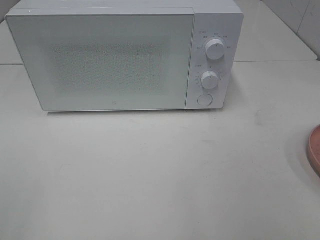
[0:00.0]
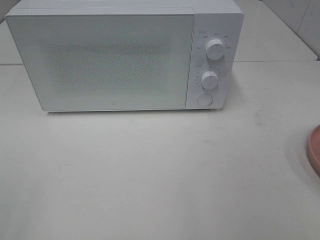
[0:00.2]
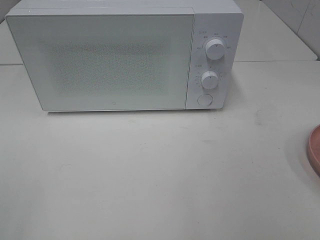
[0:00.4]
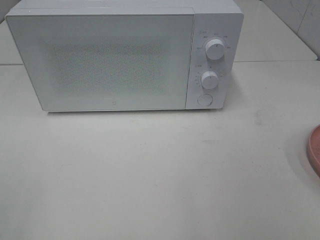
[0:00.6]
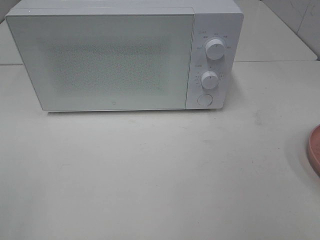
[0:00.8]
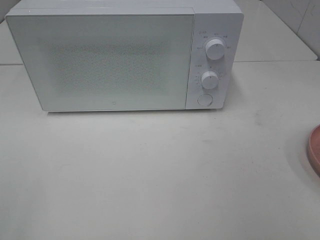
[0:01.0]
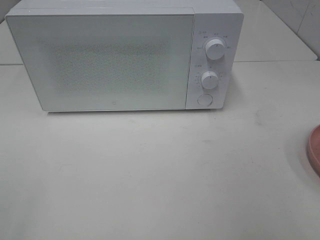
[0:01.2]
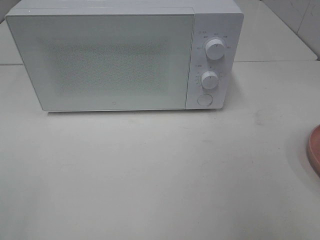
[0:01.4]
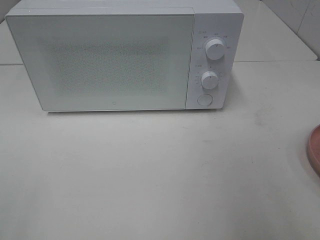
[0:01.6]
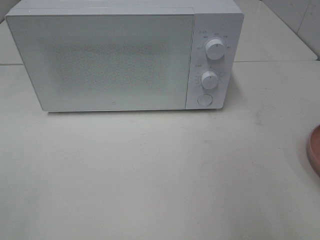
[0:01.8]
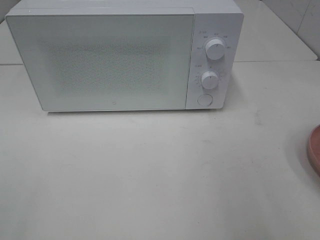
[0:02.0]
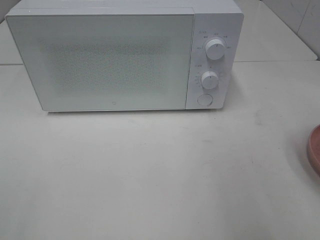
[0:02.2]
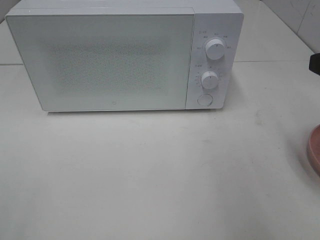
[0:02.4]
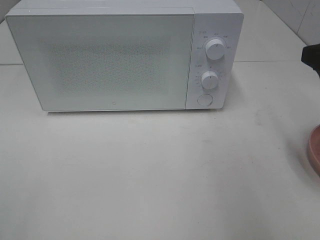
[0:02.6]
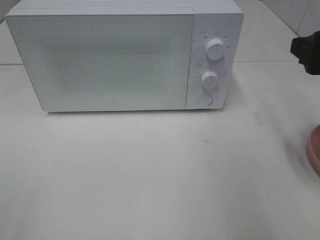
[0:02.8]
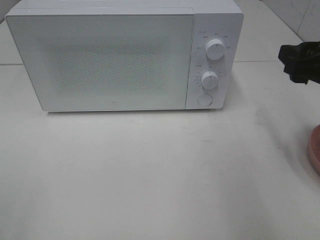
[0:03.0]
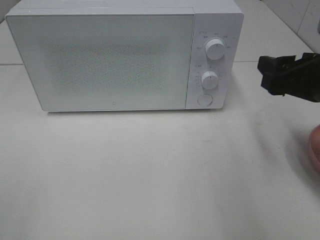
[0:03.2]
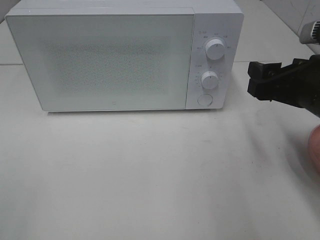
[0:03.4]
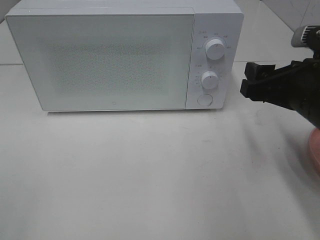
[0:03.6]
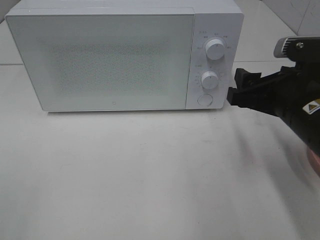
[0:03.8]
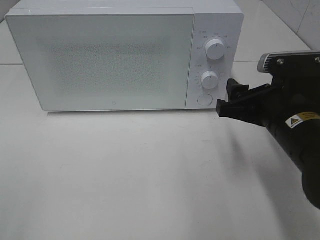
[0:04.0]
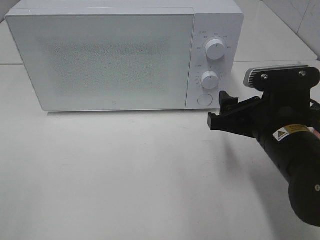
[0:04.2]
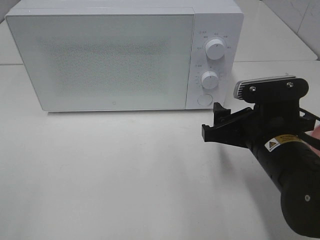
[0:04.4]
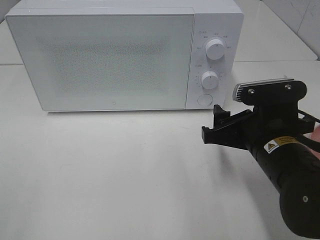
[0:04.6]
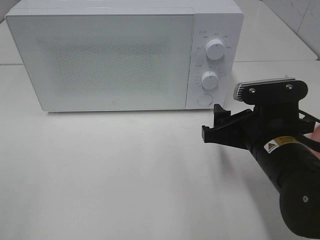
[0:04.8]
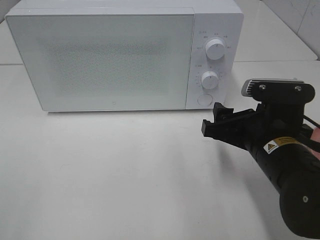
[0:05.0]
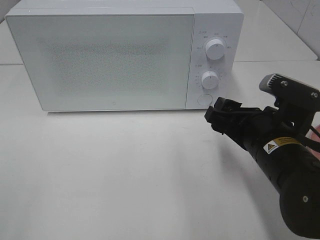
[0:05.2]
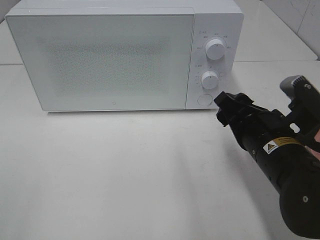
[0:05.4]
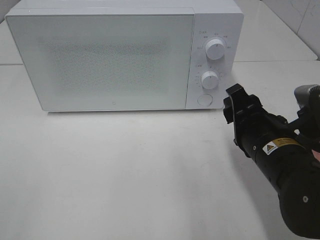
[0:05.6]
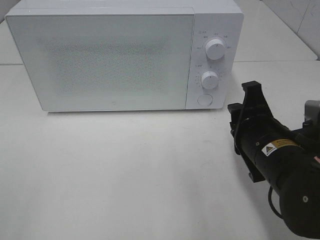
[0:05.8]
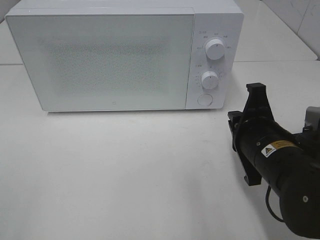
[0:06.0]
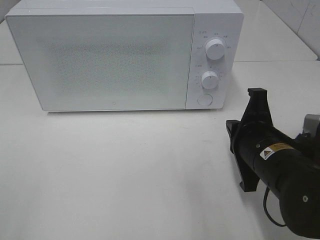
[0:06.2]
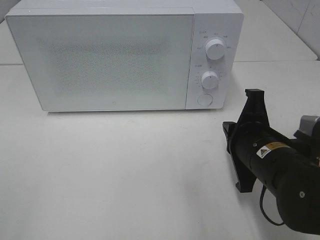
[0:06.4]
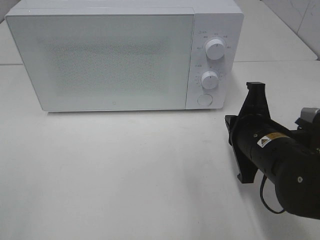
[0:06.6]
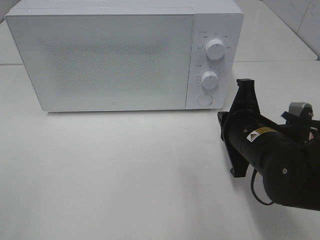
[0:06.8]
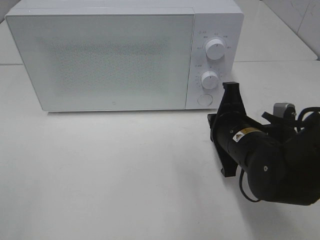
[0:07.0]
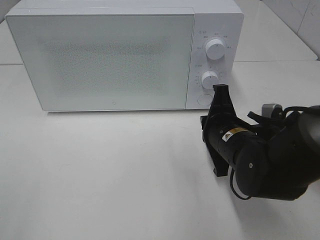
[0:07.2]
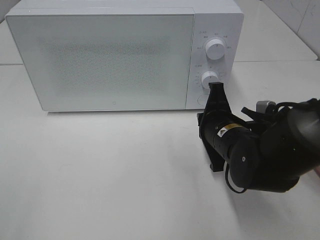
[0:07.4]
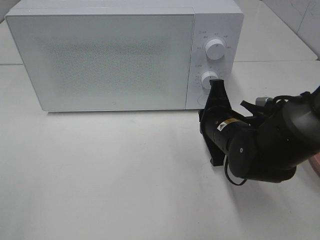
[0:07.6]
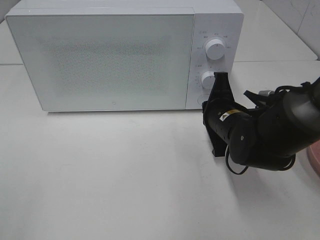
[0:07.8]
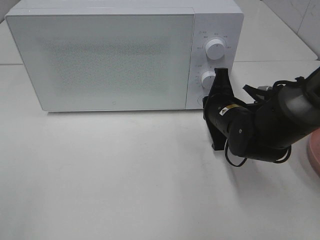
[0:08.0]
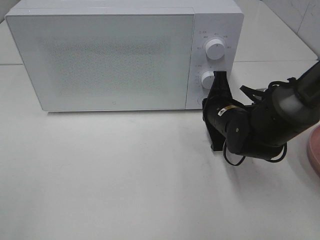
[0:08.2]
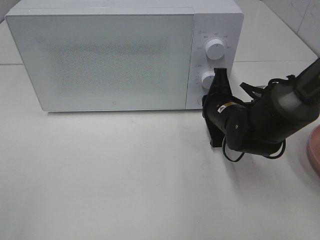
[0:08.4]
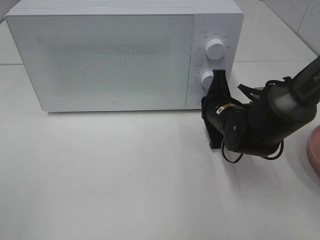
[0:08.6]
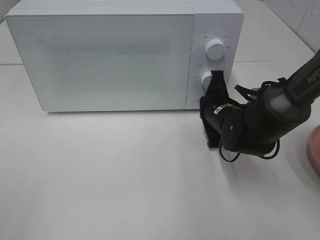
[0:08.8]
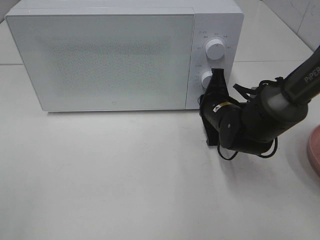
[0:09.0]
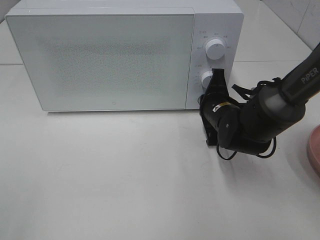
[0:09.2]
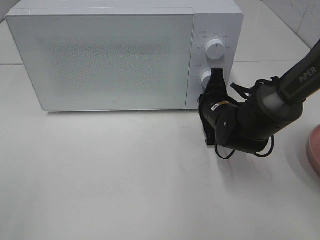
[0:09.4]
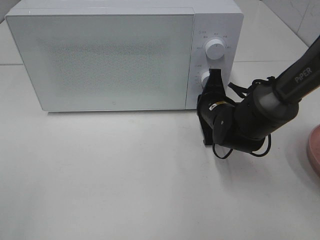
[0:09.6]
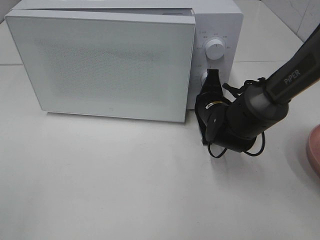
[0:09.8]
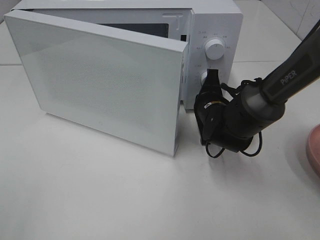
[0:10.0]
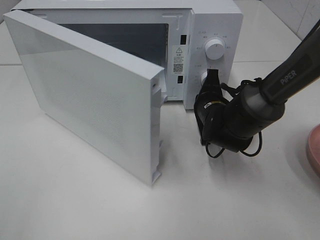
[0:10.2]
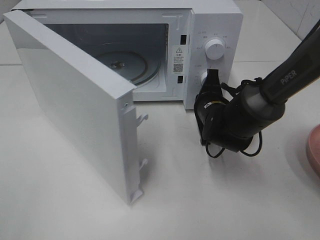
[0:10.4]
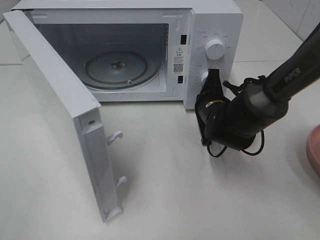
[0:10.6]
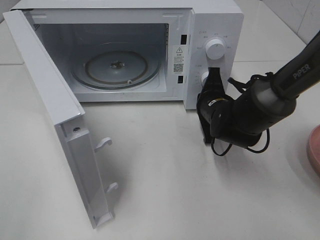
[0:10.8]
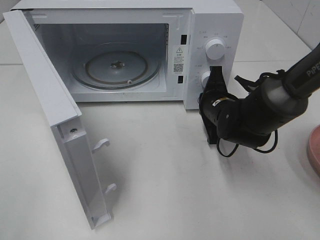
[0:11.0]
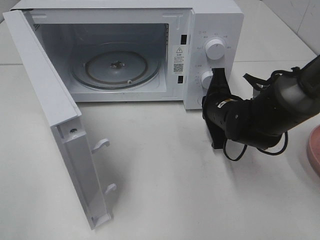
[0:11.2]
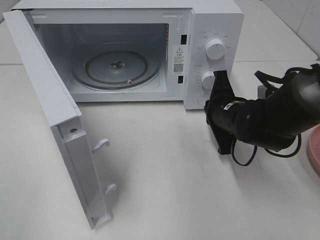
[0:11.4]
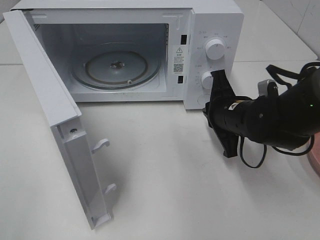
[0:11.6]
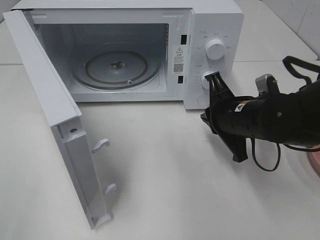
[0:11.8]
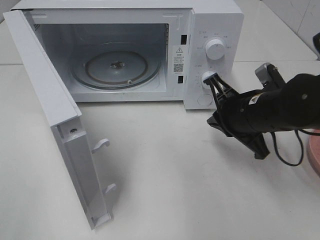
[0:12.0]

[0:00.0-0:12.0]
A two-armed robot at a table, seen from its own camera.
Task of the whole recording: Heat the burger.
Step, 0:00.0 to 0:11.4: Right hand: press the switch.
0:01.6 to 0:03.0: The right gripper is displaced forward by some 15 cm.
0:03.0 to 0:04.4: The right gripper travels to the left and downward by roughly 15 cm.
0:04.4 to 0:06.0: The right gripper closes up.
0:06.0 to 0:07.6: The right gripper shifts roughly 10 cm forward.
0:07.6 to 0:09.0: The right gripper heads forward, covering some 5 cm.
0:10.4 to 0:12.0: The right gripper moves backward and upward, approximately 10 cm.

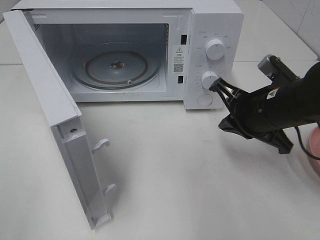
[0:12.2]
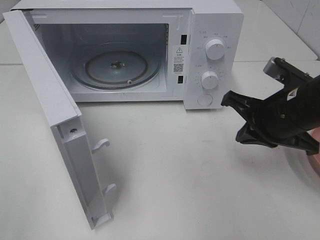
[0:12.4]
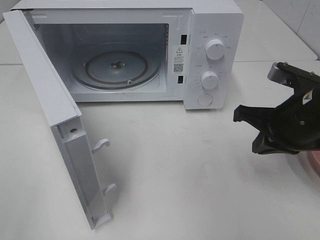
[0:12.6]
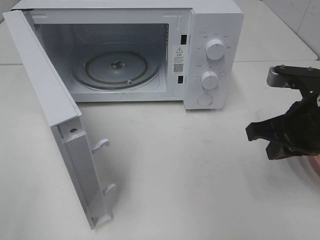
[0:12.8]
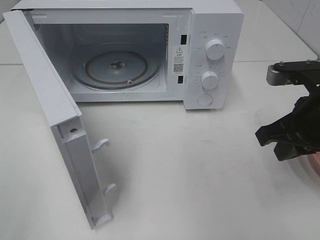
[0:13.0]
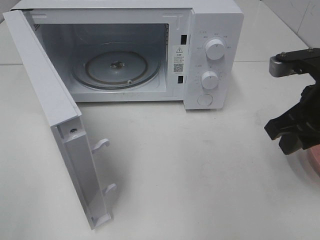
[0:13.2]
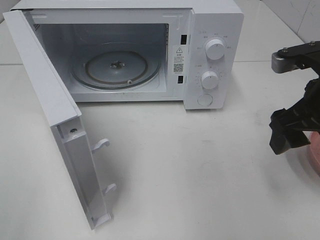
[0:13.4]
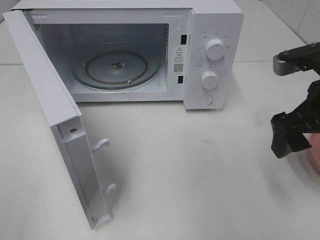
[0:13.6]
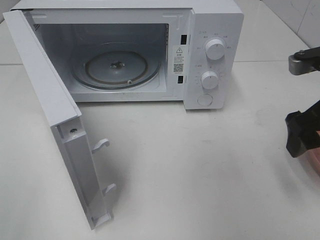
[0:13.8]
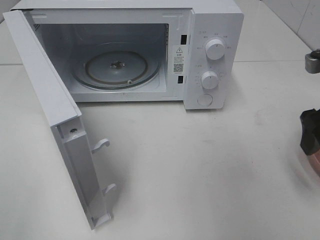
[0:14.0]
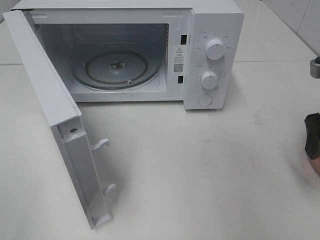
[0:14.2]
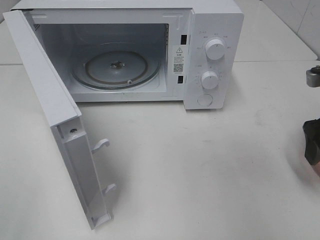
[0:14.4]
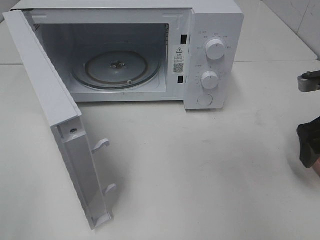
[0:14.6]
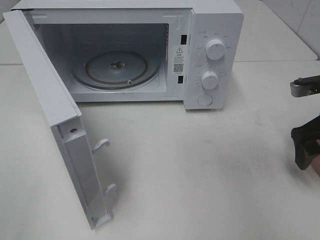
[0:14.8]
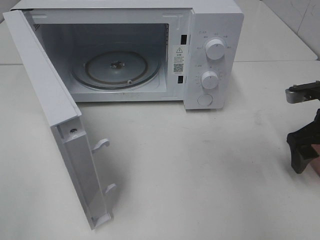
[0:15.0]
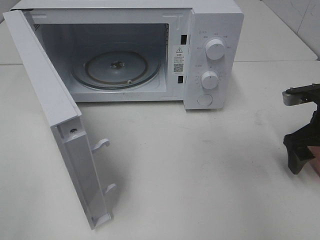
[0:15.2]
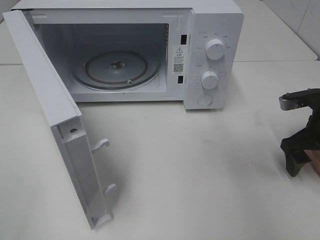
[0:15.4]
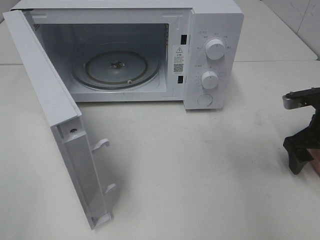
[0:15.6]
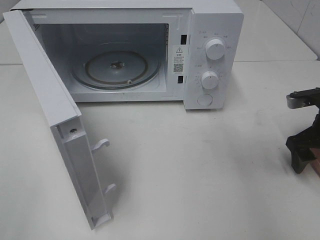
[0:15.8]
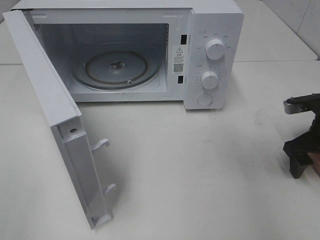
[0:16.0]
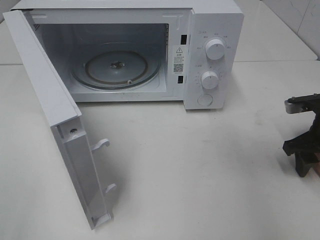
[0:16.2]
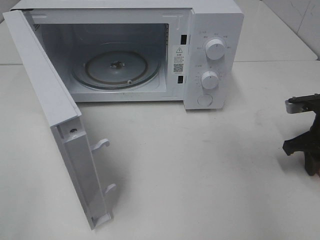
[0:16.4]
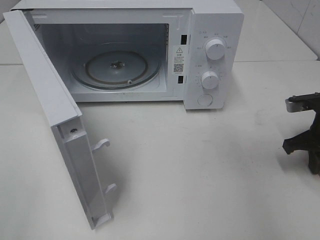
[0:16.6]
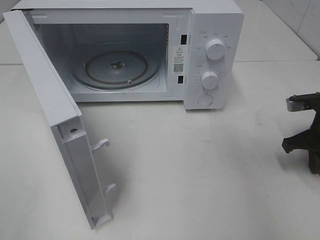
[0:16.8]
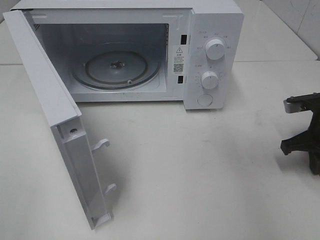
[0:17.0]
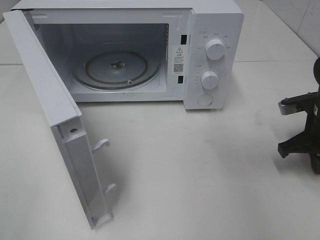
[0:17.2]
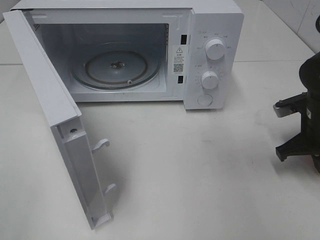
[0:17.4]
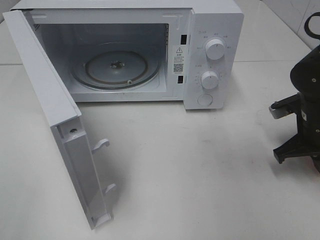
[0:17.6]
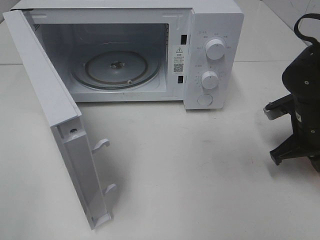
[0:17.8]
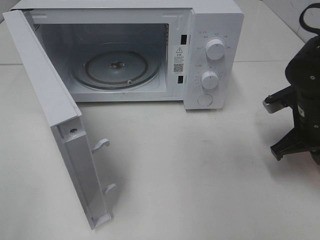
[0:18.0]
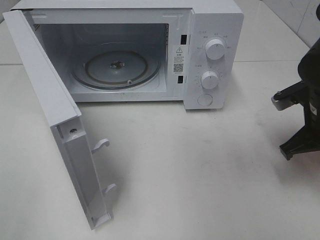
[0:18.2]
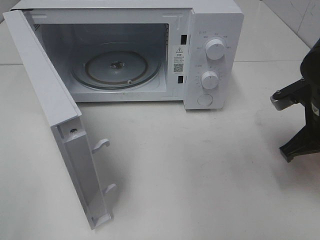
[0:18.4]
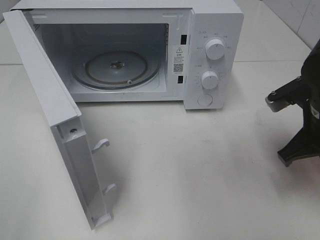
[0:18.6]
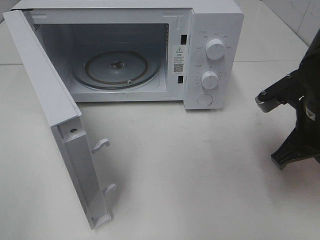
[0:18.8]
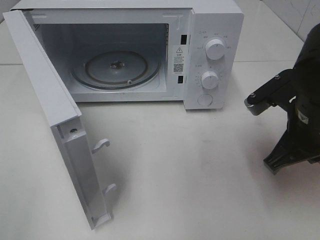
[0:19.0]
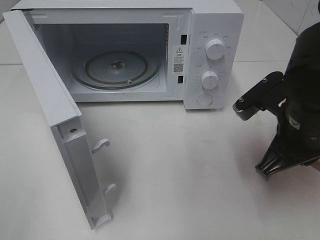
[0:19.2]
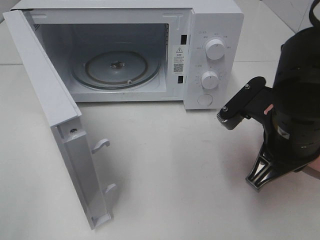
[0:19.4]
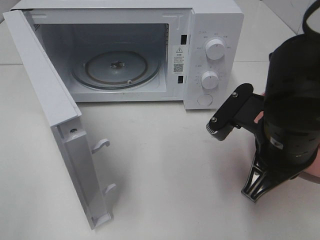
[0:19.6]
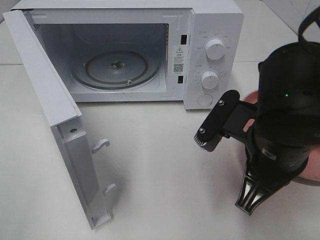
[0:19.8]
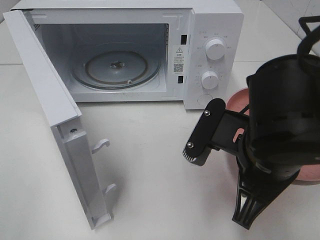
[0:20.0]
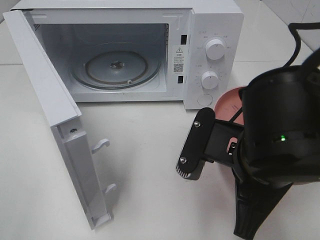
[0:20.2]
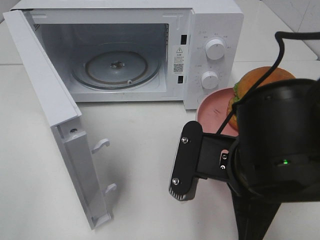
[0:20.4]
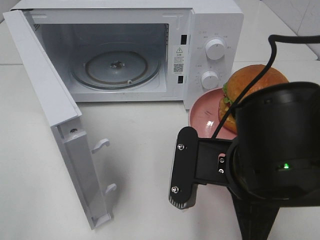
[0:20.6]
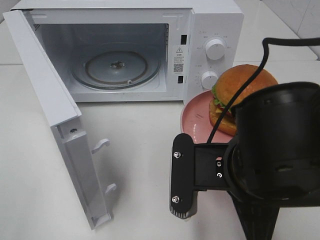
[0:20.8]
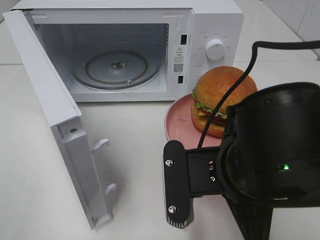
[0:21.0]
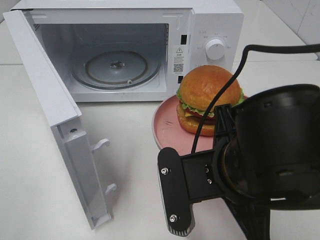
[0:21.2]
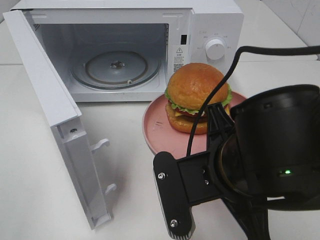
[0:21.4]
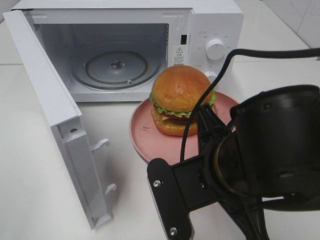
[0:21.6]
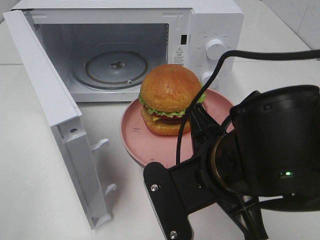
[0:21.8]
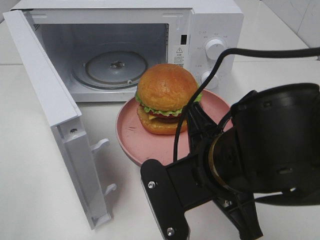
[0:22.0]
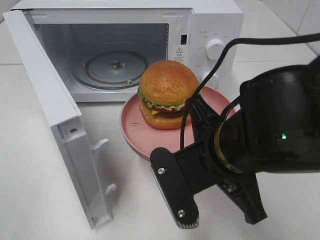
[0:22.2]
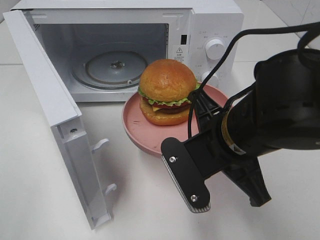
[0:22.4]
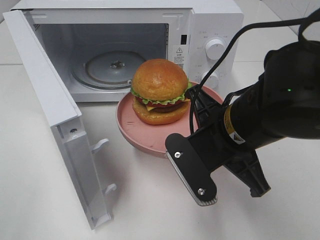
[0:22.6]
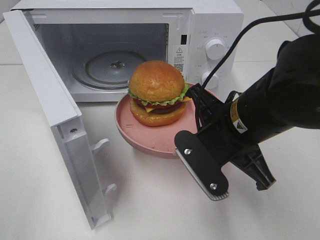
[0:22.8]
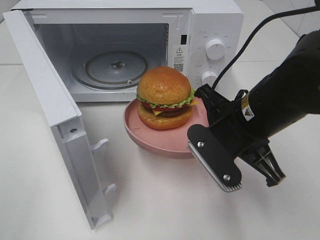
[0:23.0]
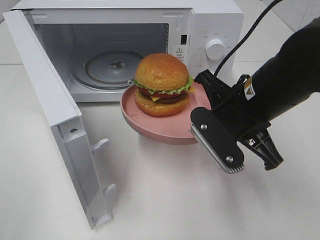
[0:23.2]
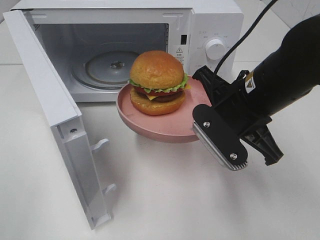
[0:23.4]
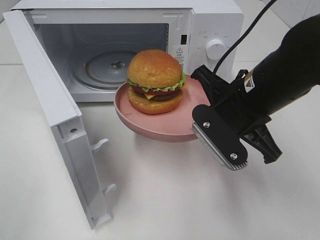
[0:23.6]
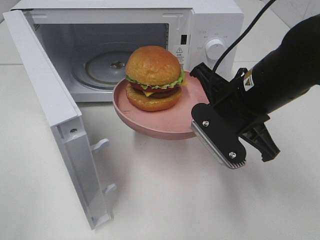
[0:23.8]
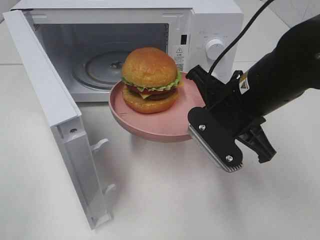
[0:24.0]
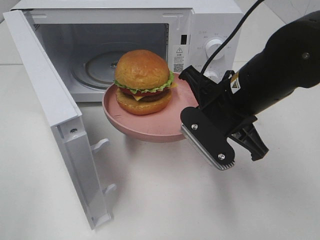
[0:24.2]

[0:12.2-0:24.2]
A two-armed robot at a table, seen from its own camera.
Task of the whole recording: Heat the burger.
Step, 0:12.2 to 0:17.6: Right hand: grab the plate with the hamburger.
0:12.2 to 0:13.8: The right gripper goes roughly 10 cm to the right and upward, and opens up.
0:13.8 to 0:15.2: The right gripper travels downward and forward by roughly 10 cm.
0:15.2 to 0:16.6: The right gripper closes.
0:16.6 to 0:18.2: The right gripper travels to the left by roughly 5 cm.
0:18.2 to 0:19.8: The right gripper moves to the left and backward, roughly 15 cm.
0:19.8 to 0:21.2: The right gripper ends up roughly 5 cm from where it was.
0:21.2 to 0:22.6: The right gripper shifts some 5 cm forward.
0:22.6 to 0:24.2: The right gripper is displaced forward by about 5 cm.
